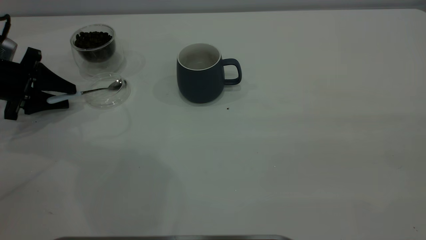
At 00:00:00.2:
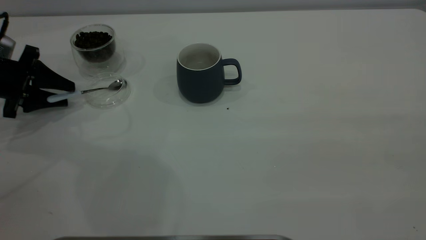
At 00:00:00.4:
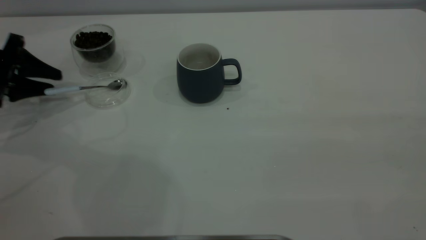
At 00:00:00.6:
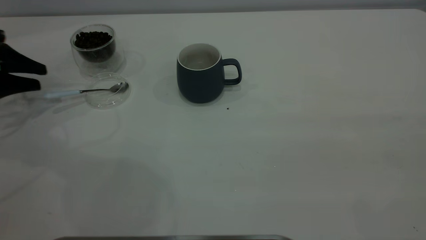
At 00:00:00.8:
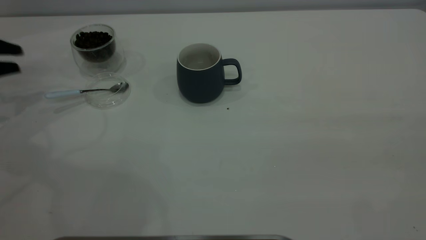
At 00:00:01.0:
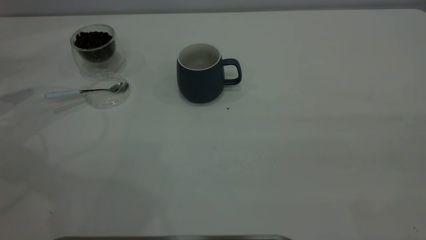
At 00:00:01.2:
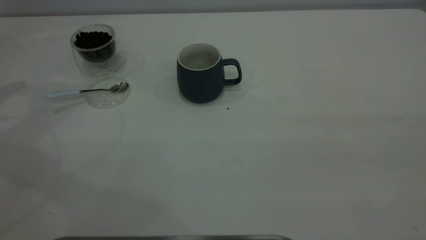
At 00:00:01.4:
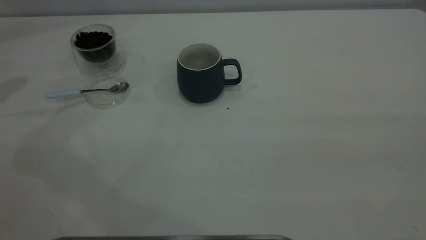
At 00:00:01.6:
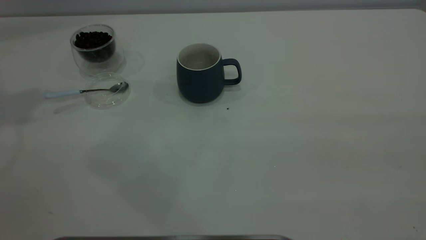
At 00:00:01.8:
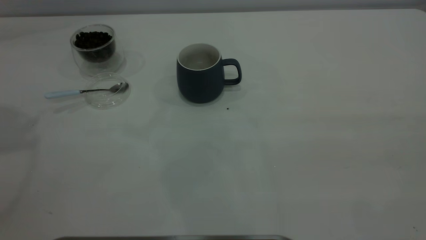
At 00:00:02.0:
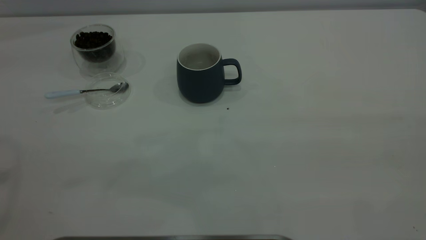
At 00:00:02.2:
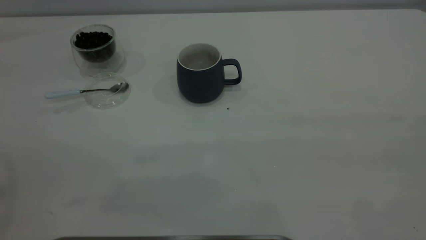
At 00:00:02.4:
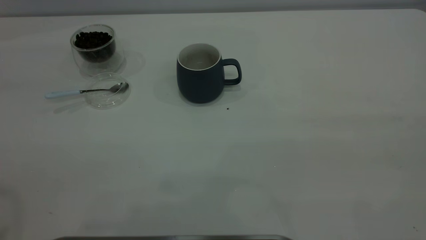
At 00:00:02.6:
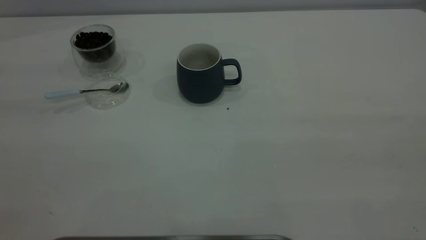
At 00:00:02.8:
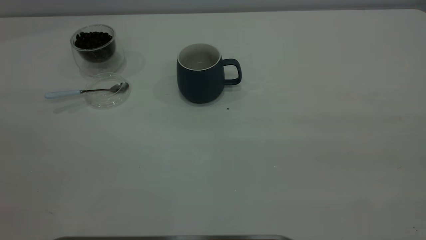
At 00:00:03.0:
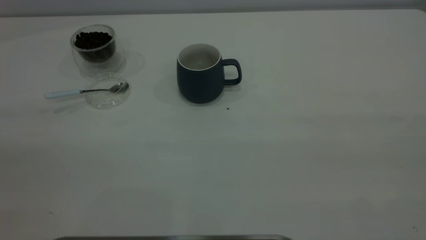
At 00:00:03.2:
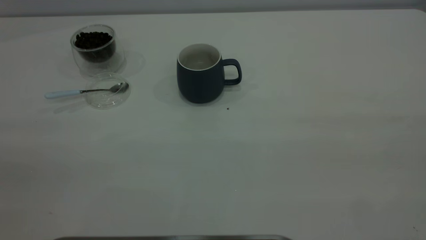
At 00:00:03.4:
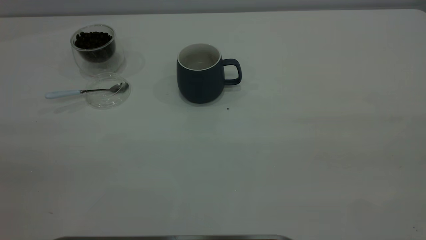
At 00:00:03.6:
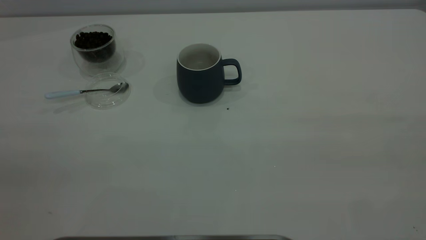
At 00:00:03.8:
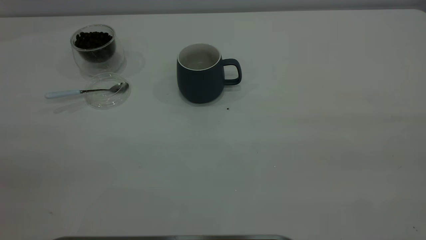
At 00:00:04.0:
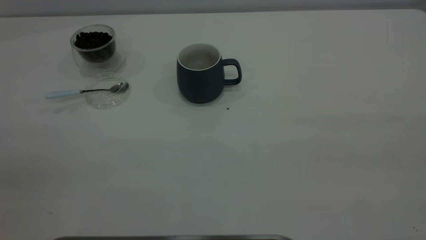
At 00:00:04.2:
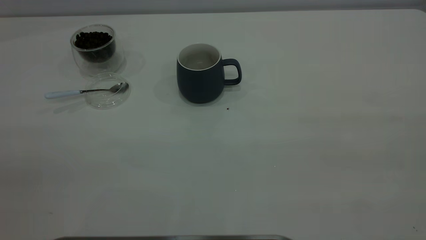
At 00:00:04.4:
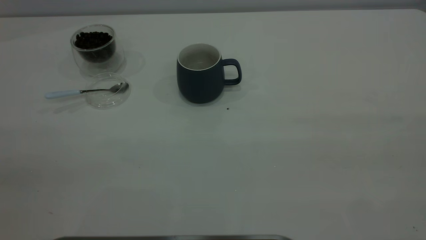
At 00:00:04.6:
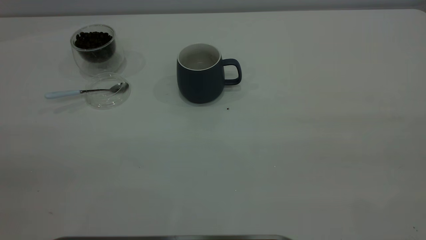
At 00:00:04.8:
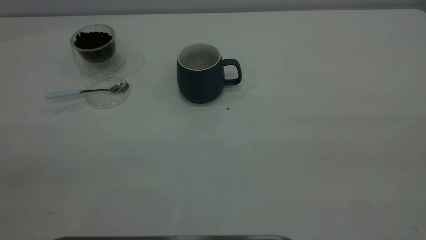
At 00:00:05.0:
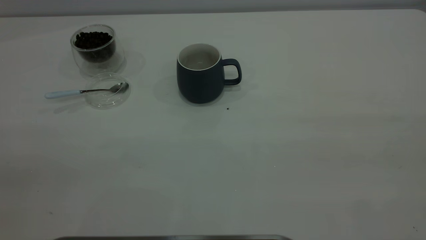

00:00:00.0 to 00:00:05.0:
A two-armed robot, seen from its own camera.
Task of the whole recording: the right gripper place the grey cup in the center of the table, the left gripper take the blue spoon from the cup lid and scoop out the coffee beans from the coffee cup and put them into the grey cup, the left gripper put the spoon back into the cup lid.
00:00:00.0 to 00:00:01.6: The left gripper travels upward by some 35 cm.
00:00:03.4 to 00:00:05.0: Neither gripper changes place.

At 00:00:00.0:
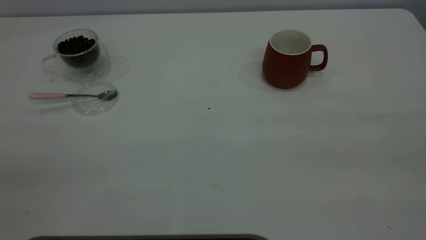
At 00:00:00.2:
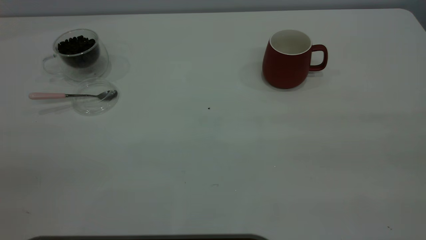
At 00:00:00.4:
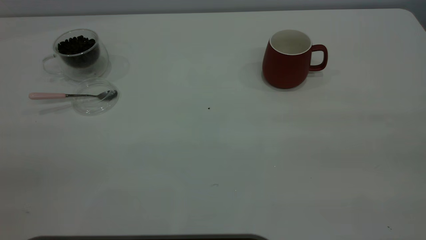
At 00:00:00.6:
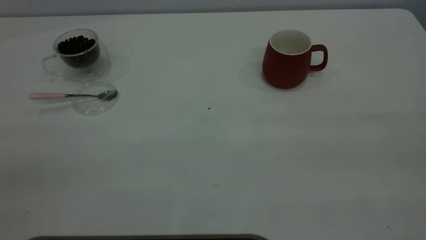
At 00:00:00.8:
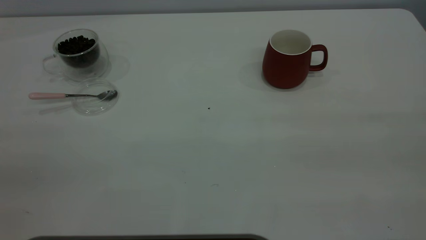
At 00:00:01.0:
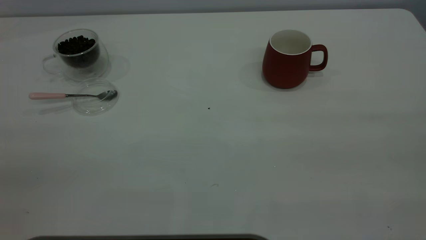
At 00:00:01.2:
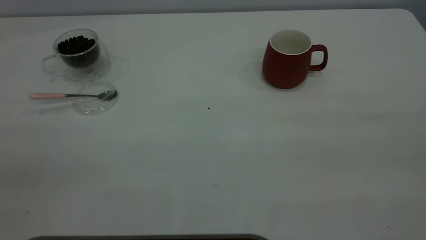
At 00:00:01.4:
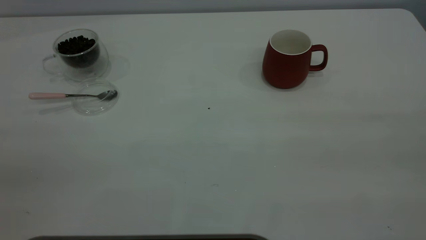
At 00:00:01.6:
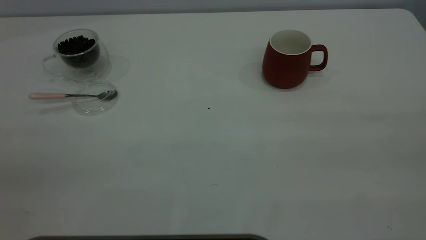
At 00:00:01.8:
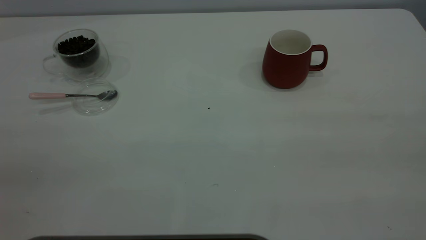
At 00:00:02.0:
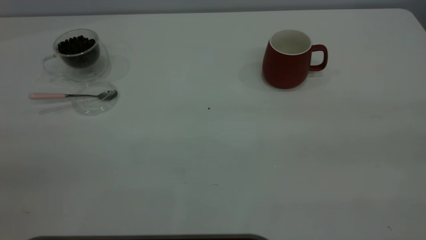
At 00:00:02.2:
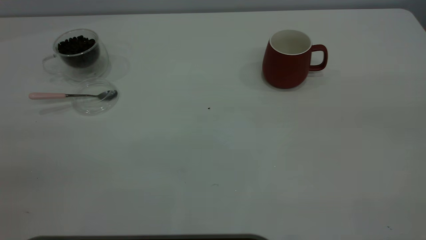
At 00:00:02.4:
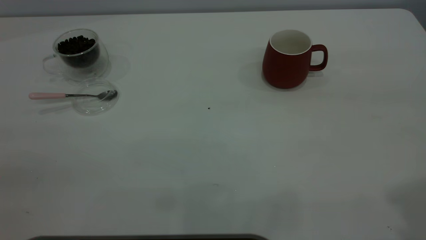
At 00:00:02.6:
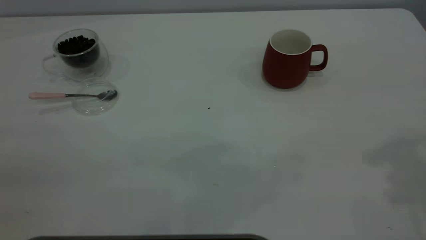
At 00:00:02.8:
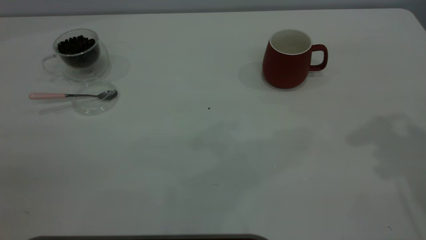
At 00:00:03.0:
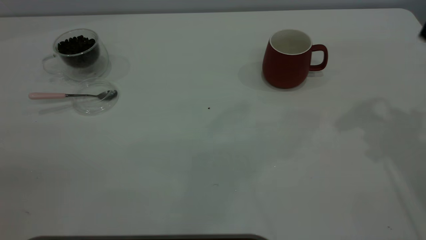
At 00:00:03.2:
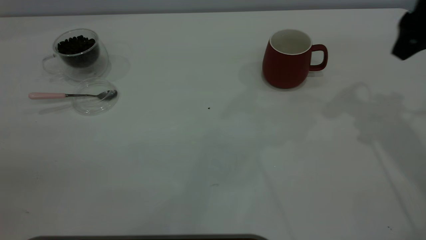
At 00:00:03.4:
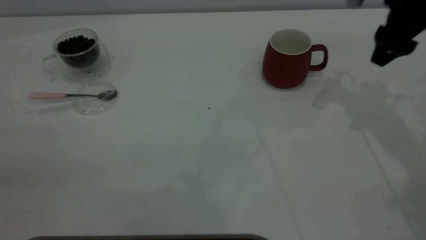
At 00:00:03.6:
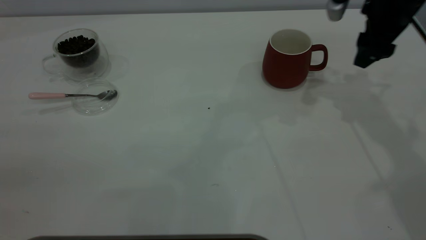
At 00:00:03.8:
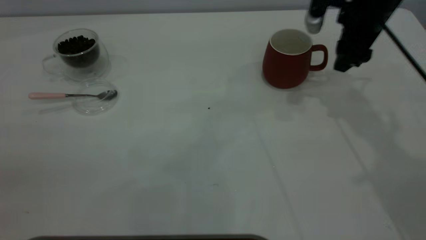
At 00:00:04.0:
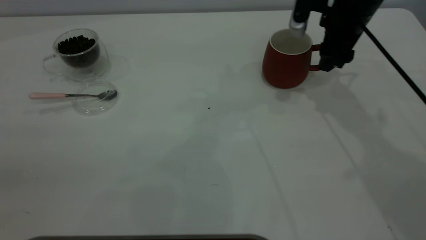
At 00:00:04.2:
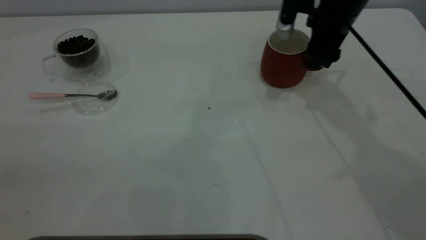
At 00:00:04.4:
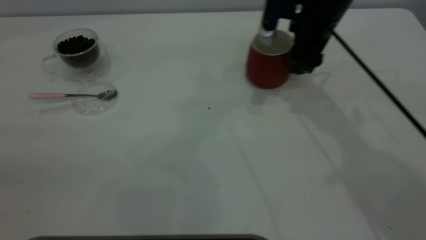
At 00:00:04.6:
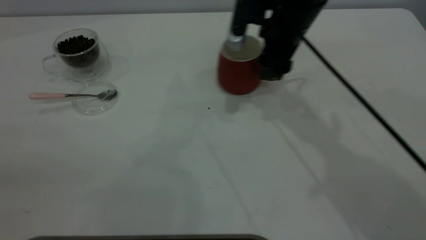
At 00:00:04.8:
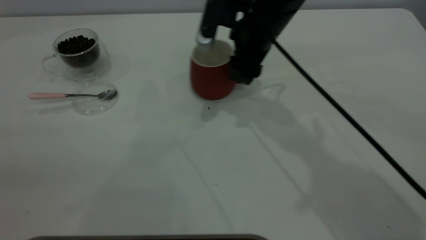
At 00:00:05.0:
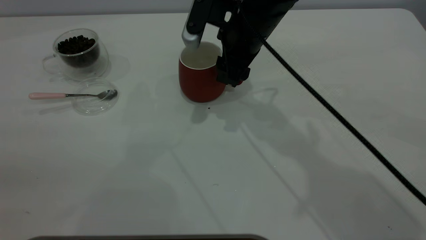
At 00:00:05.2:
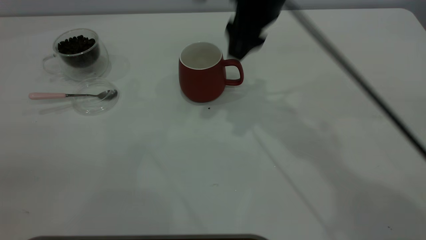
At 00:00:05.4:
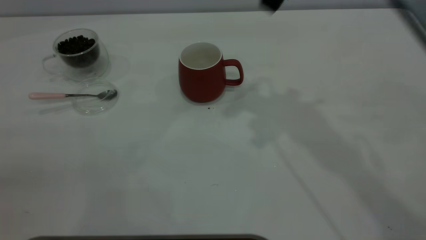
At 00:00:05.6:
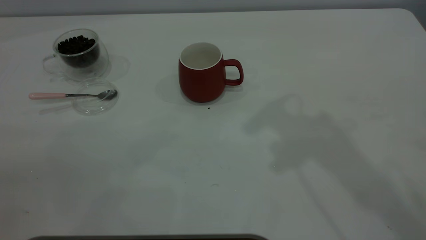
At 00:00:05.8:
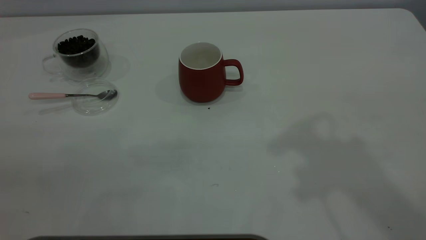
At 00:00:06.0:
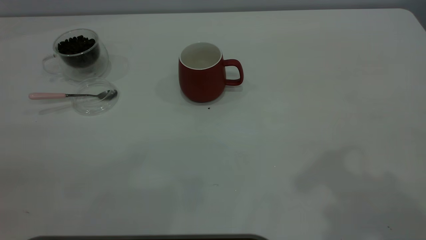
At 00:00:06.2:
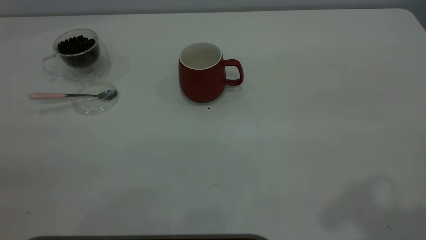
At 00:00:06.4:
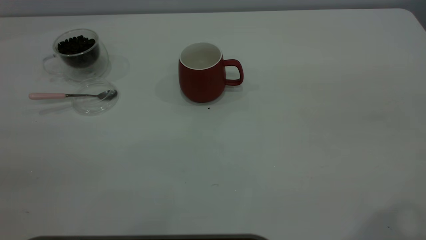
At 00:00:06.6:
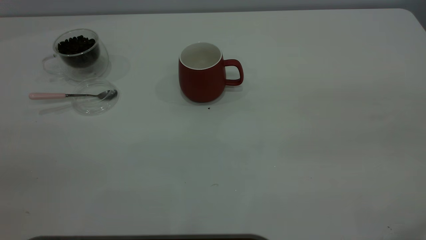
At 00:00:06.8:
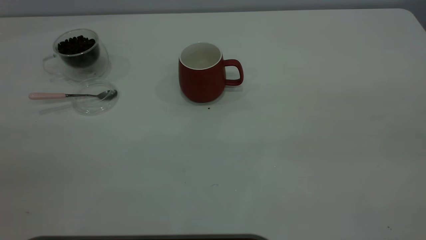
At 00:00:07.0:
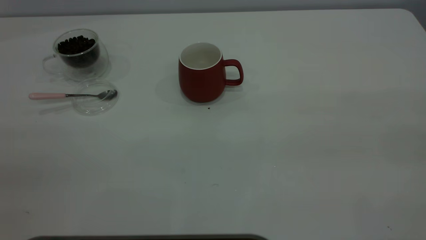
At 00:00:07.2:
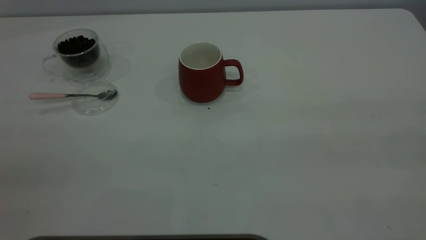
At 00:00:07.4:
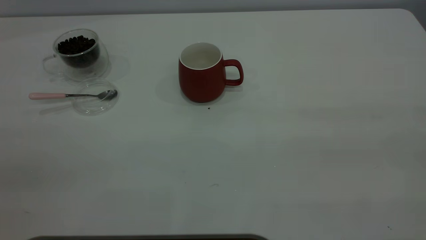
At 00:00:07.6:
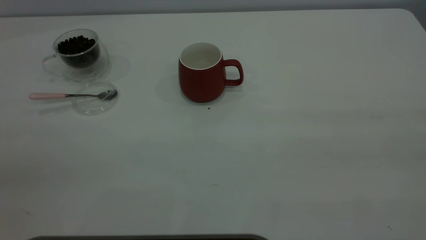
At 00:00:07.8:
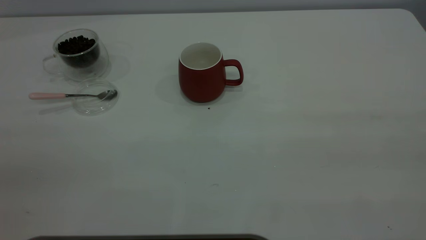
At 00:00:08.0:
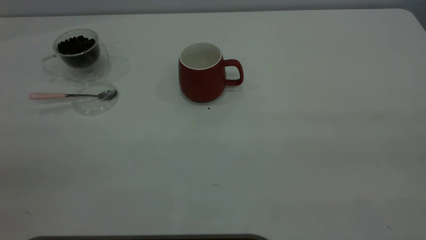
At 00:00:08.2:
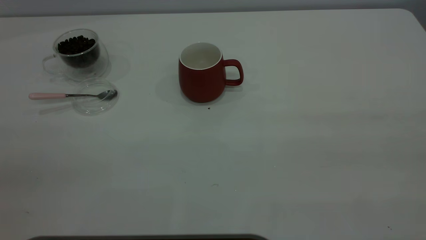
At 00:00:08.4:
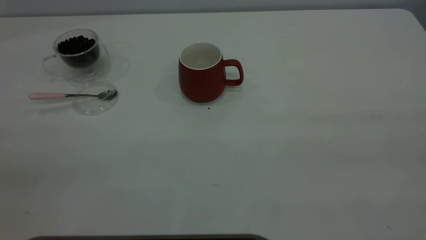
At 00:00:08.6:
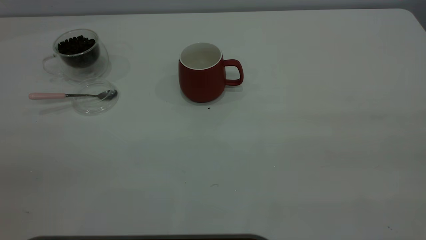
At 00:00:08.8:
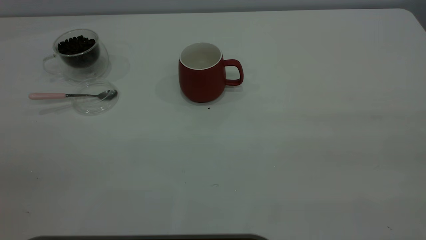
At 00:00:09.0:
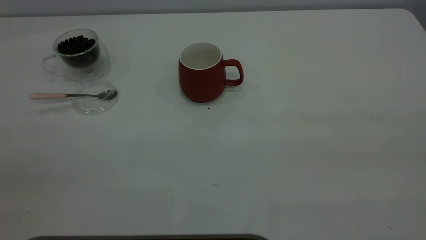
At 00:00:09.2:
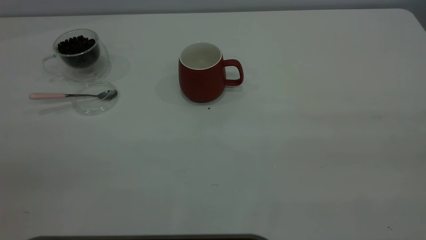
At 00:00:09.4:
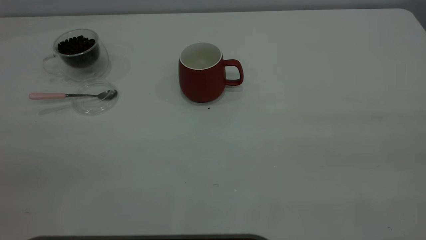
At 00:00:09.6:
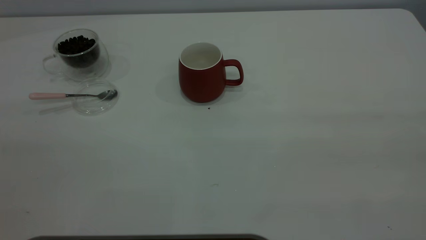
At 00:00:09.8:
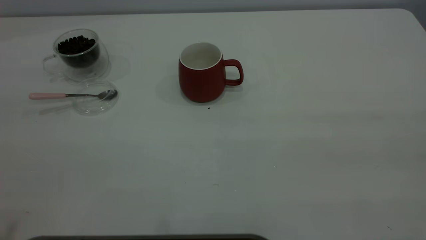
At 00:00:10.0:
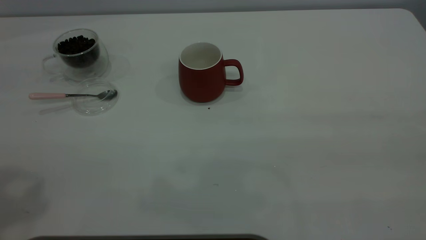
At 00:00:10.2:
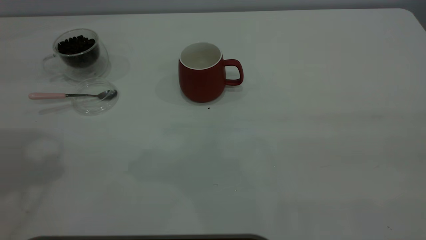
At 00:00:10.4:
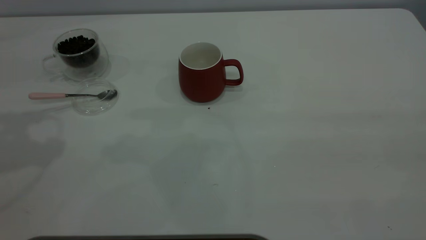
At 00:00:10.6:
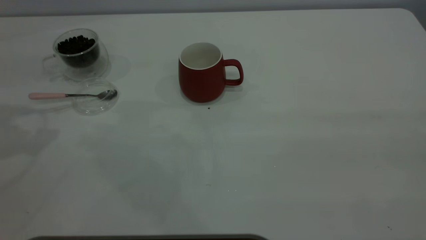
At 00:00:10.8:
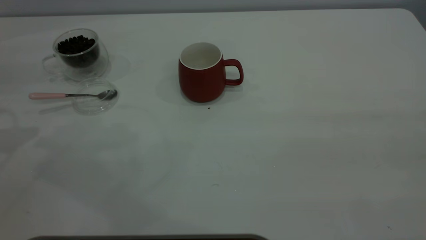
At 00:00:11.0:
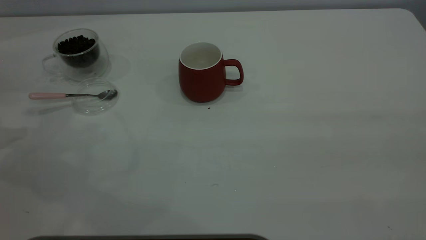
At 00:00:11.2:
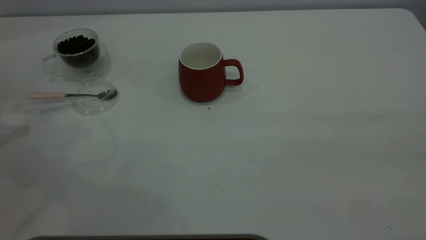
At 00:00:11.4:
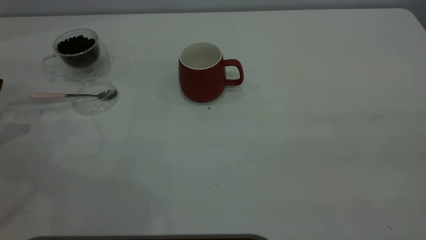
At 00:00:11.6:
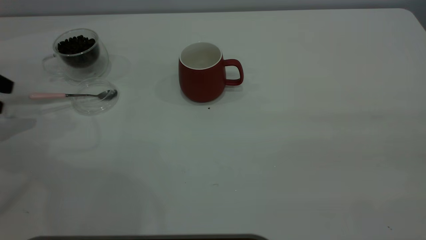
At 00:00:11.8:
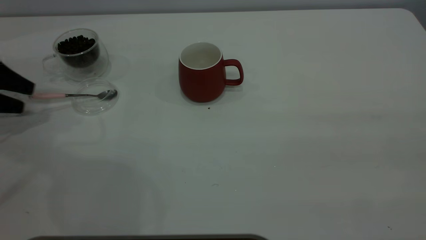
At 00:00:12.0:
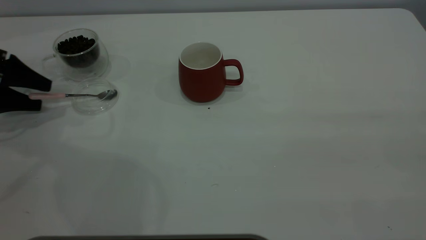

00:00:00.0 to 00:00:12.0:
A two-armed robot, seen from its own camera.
Task of the whole recording: the right gripper place the red cup in the center of the table, the left gripper take the pink spoon from the cup lid and scoop out the coffee beans from the coffee cup and put them into the red cup, the left gripper put the spoon back into the cup lid.
Step, 00:00:00.0 to 00:00:05.2: Move the cup to the center of view.
00:00:00.0 to 00:00:01.6: Neither gripper changes place.
00:00:03.0 to 00:00:04.4: The right gripper moves to the left, downward and forward, approximately 20 cm, and closes its fingers.
00:00:04.4 to 00:00:06.0: The right gripper moves upward and backward, approximately 35 cm.
00:00:10.4 to 00:00:12.0: The left gripper travels downward by approximately 25 cm.
